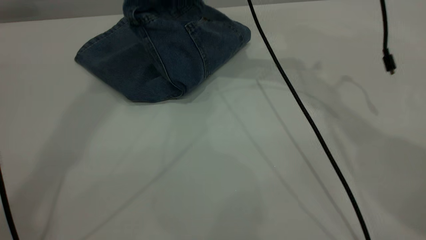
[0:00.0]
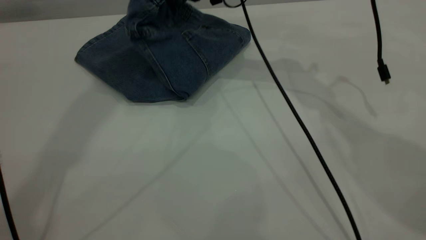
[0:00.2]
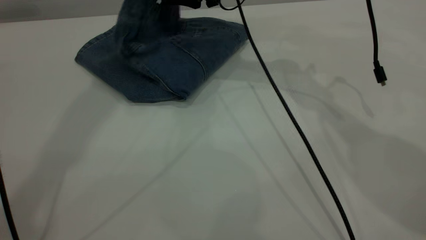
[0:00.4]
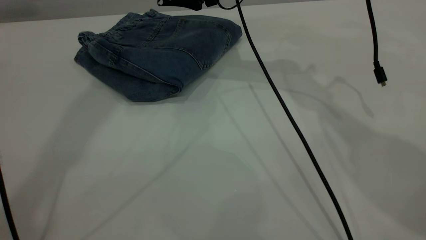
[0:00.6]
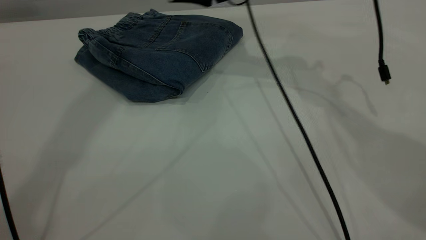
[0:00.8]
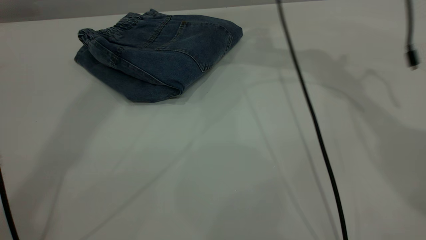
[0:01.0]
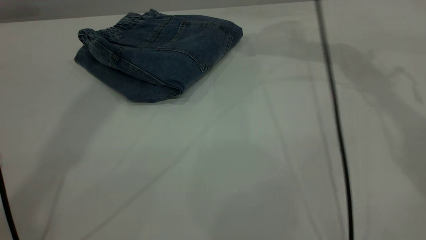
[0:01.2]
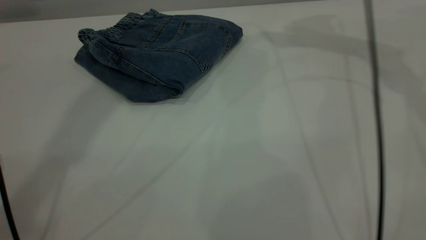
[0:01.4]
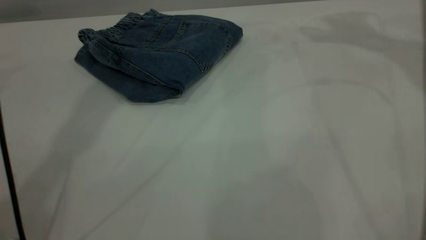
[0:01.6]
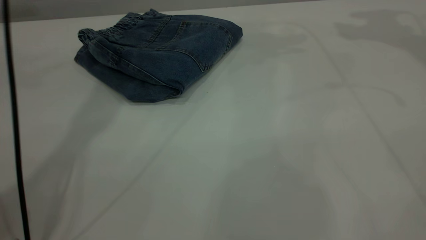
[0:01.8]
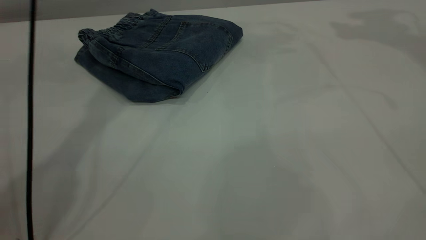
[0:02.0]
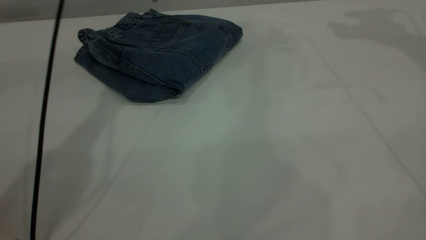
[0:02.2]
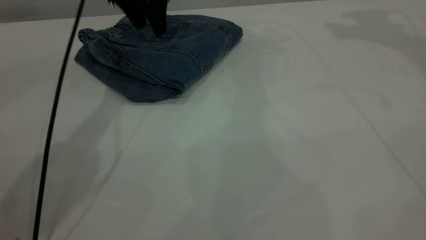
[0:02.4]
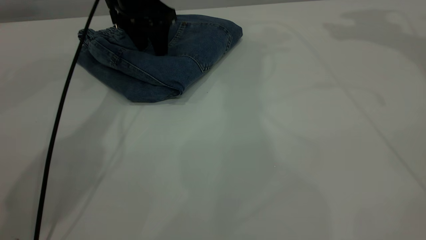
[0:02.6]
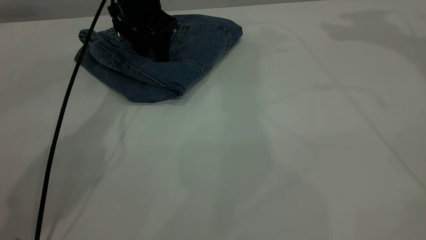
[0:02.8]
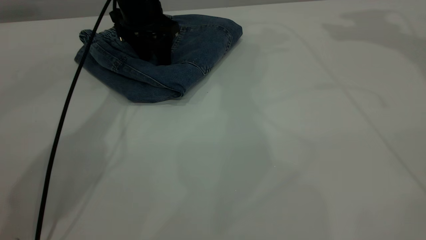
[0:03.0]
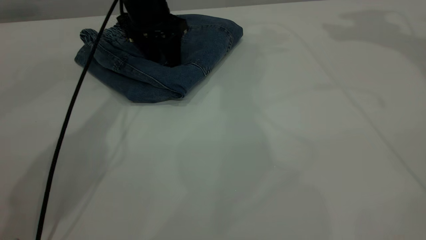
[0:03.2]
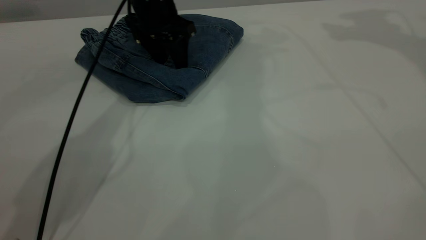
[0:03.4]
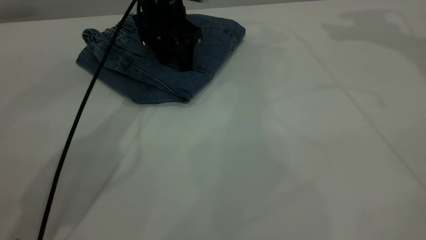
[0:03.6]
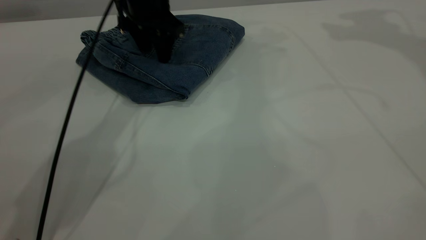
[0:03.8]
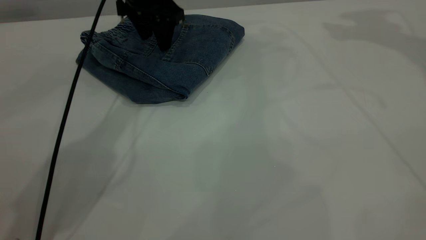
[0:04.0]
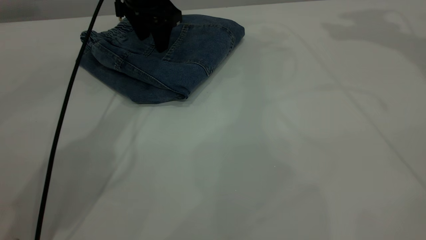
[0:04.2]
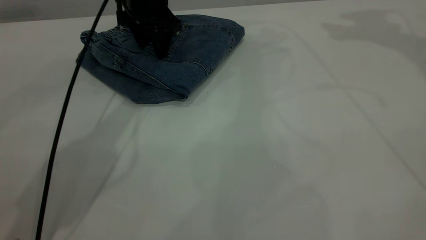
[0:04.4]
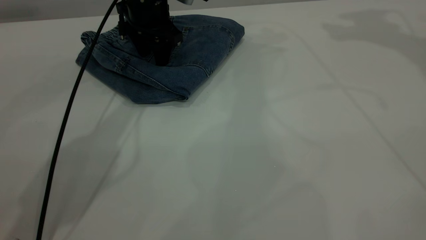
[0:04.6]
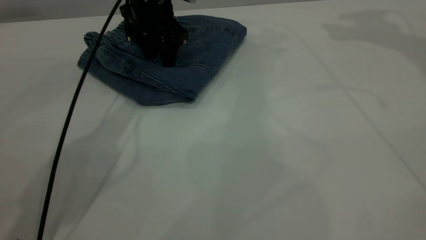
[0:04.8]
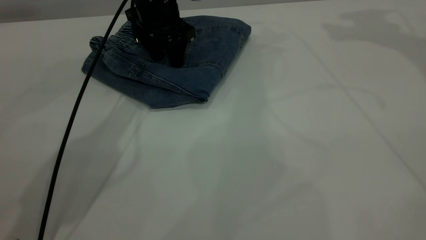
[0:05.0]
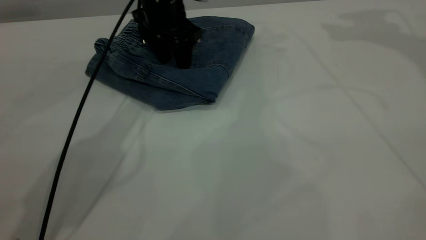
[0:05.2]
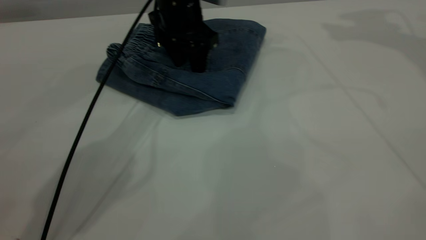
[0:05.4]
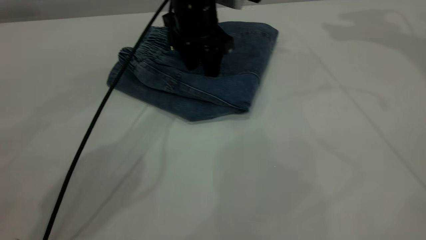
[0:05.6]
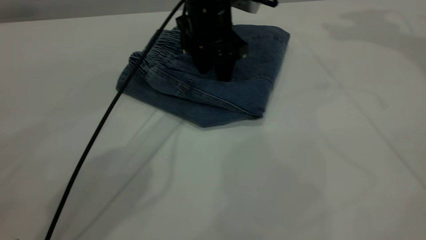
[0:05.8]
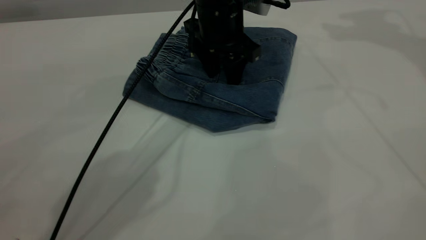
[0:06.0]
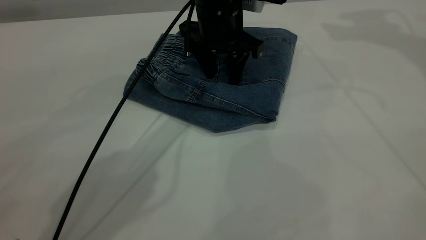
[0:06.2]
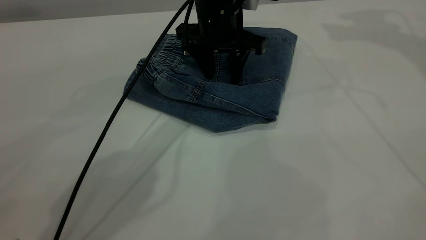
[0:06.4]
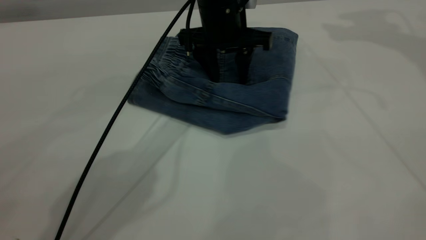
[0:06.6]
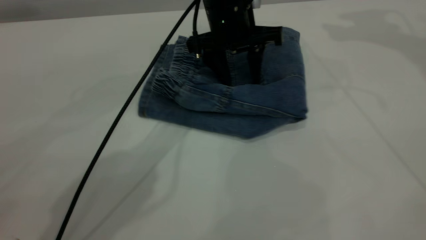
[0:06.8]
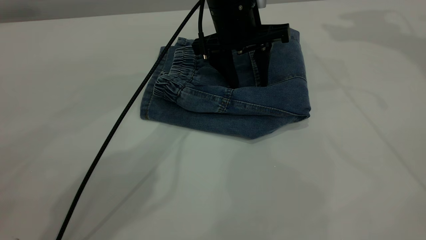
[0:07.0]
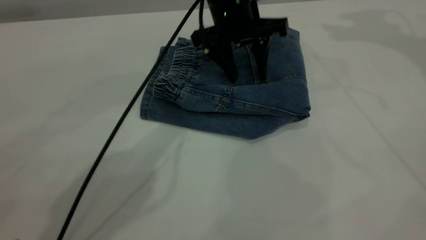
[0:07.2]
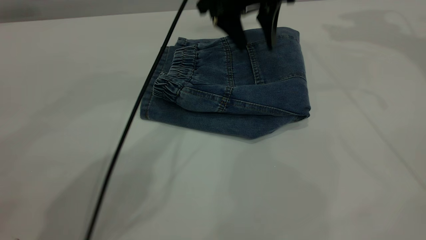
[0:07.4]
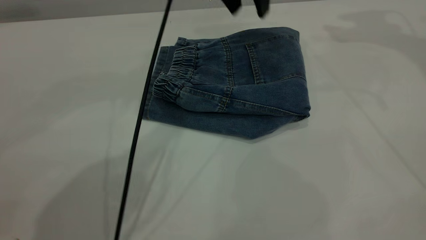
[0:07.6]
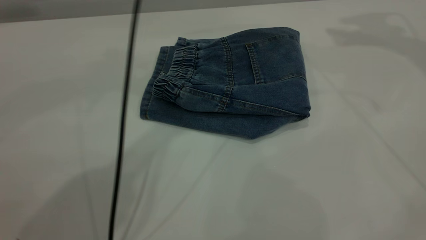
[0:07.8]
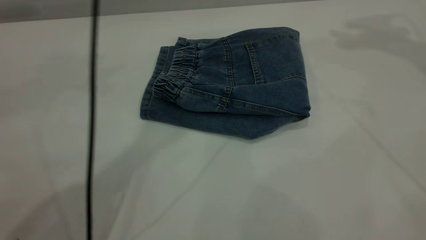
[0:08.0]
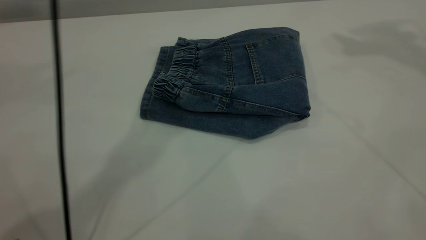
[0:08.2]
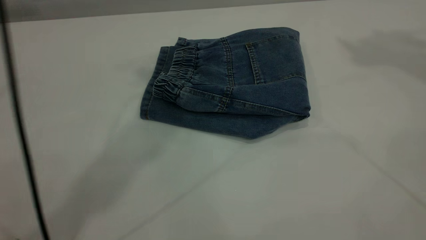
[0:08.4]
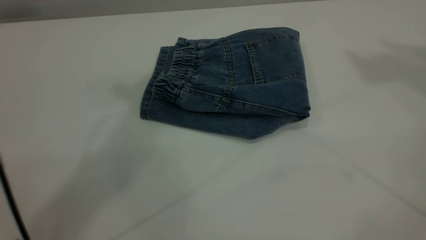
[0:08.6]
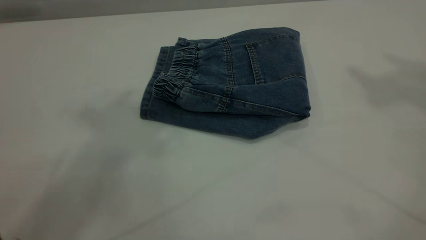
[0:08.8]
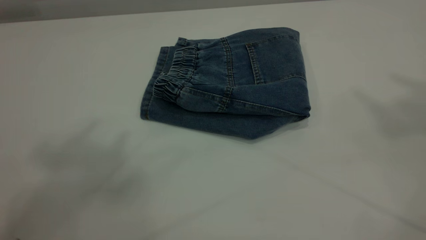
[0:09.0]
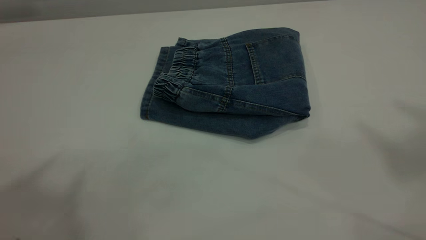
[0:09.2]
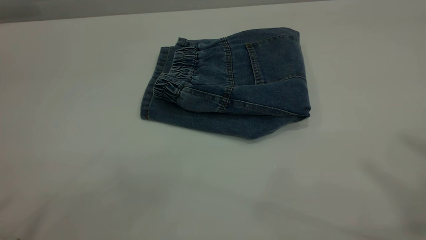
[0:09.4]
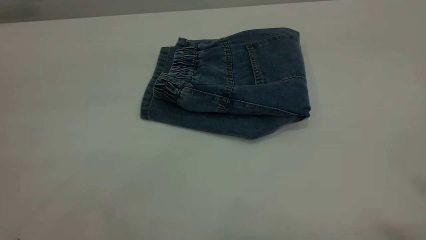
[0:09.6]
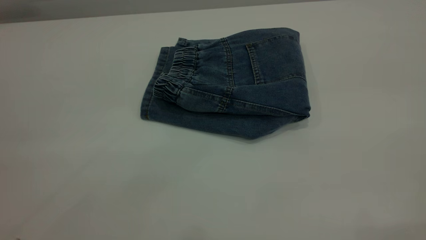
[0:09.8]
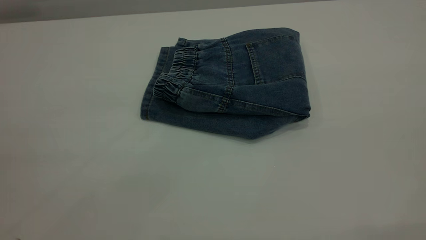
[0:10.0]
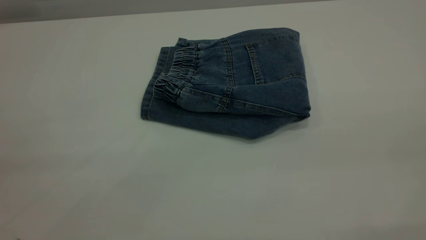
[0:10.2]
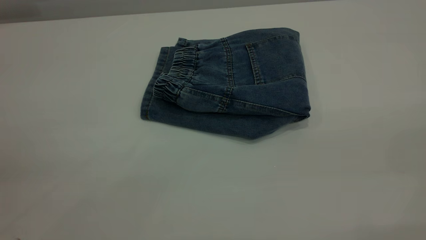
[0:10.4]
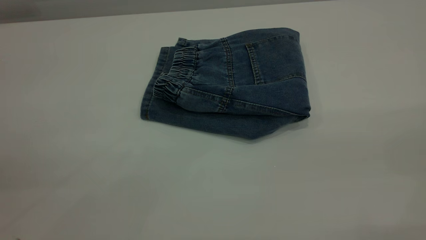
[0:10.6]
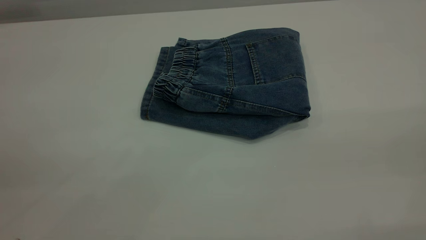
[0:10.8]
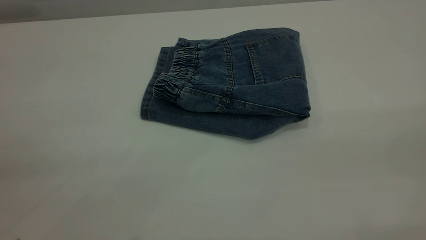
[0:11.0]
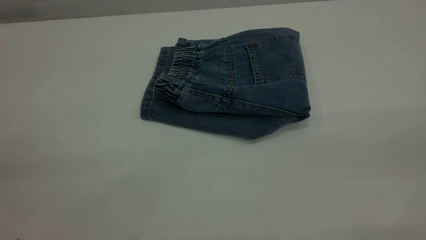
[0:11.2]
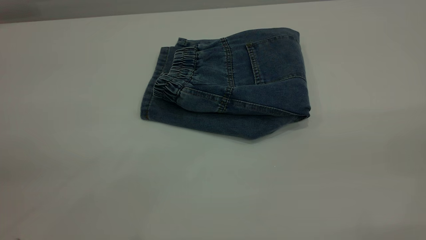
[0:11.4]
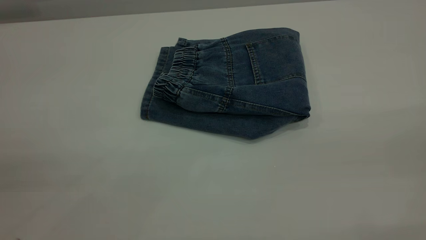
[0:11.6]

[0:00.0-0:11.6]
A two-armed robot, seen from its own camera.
0:00.0 to 0:01.4: The right gripper goes roughly 20 cm to the right and upward, and opens up.
0:01.4 to 0:02.8: The right gripper moves upward and to the right, about 10 cm. Meanwhile the left gripper goes approximately 35 cm downward.
0:02.8 to 0:04.4: There are only small adjustments of the grippers.
0:04.4 to 0:05.8: The left gripper shifts roughly 10 cm to the right and backward.
0:07.2 to 0:08.8: The right gripper heads upward and backward, covering some 30 cm. Meanwhile the left gripper moves upward, to the left and backward, about 50 cm.

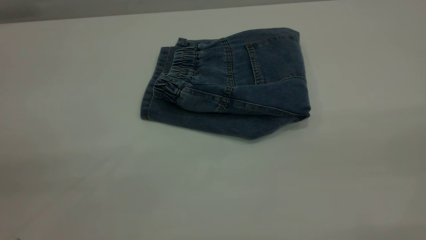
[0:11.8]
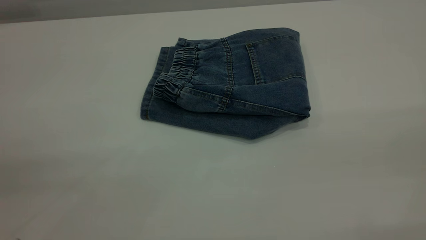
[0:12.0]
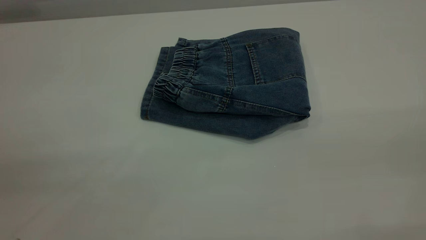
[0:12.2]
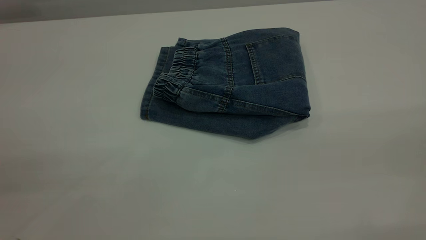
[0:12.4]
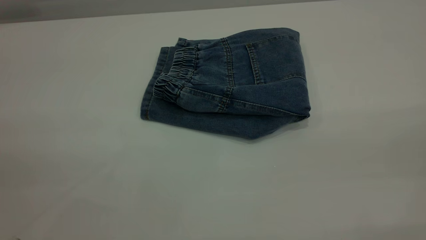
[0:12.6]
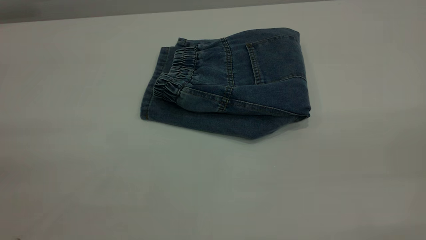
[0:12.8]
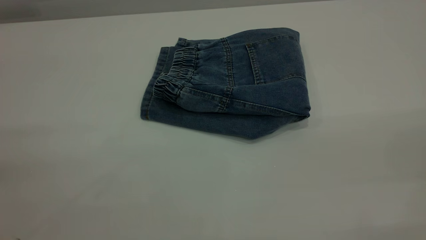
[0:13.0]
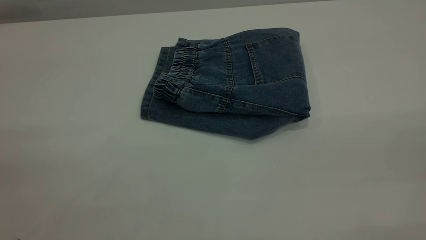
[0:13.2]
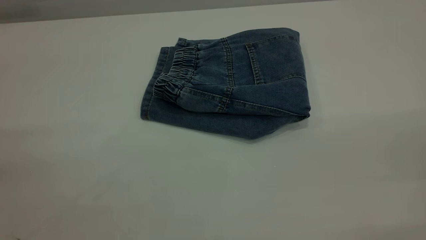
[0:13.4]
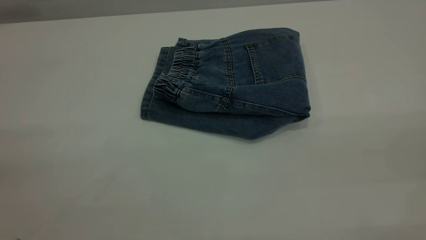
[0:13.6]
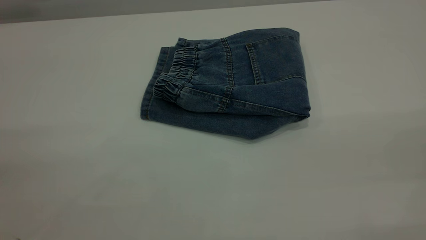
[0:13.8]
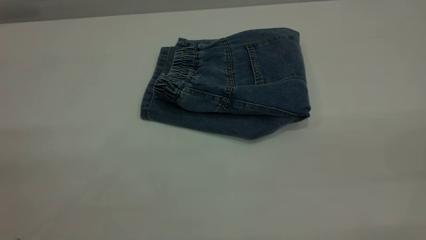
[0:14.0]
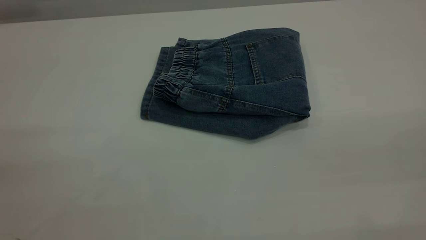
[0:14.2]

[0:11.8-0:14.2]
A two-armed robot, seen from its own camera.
0:13.0 to 0:14.2: The two grippers keep their place.
